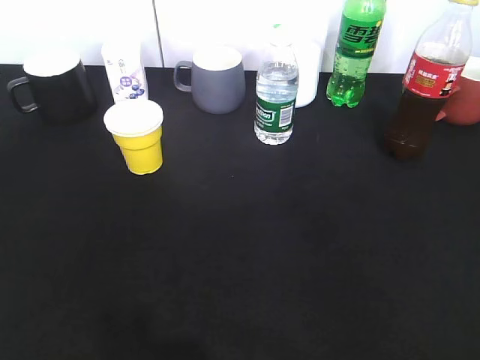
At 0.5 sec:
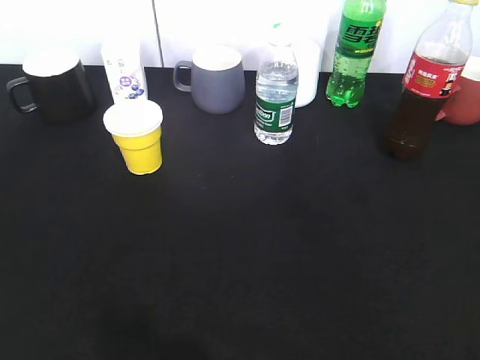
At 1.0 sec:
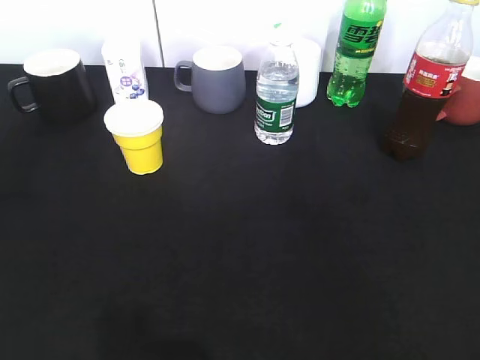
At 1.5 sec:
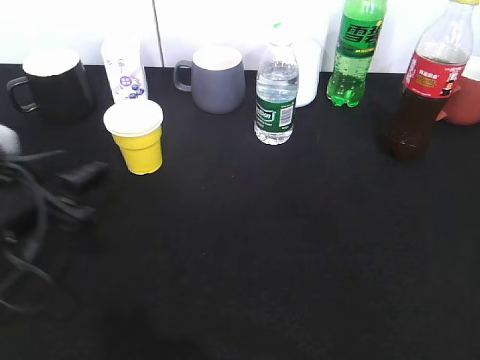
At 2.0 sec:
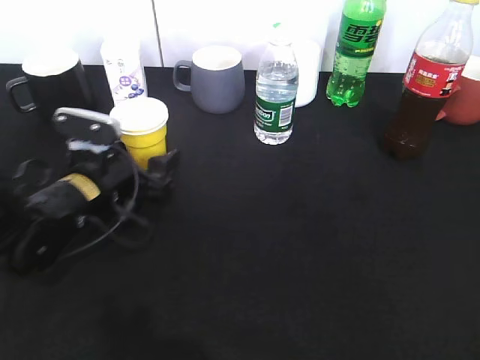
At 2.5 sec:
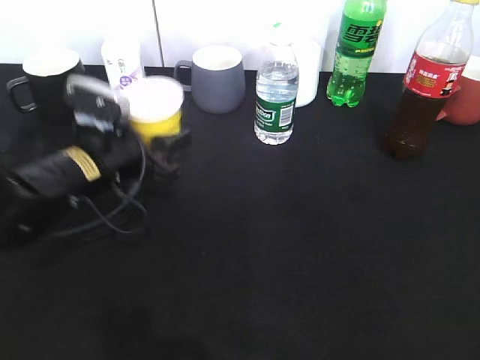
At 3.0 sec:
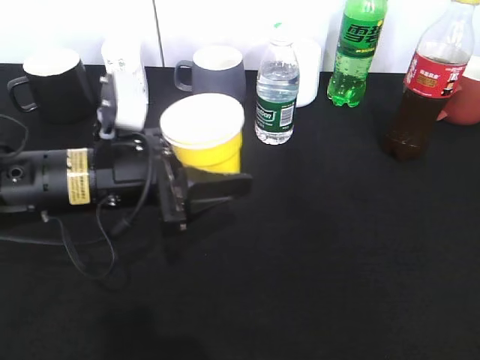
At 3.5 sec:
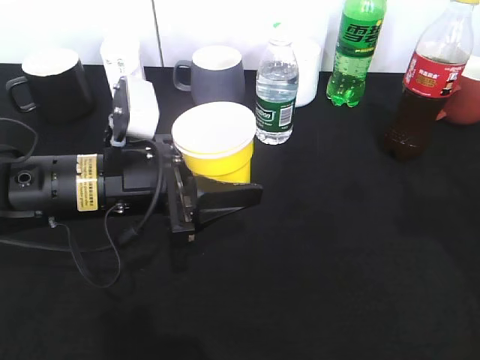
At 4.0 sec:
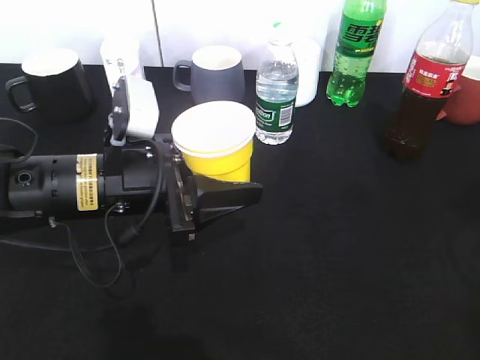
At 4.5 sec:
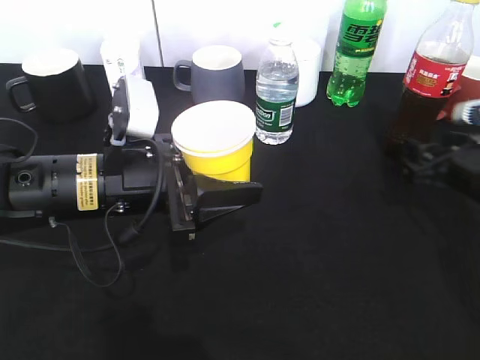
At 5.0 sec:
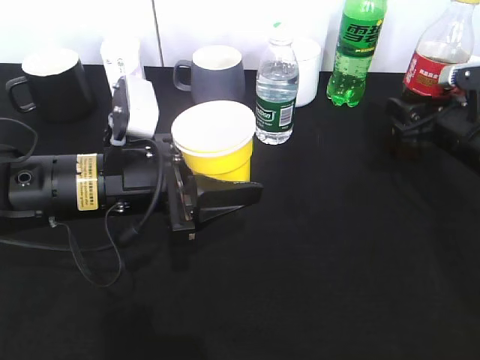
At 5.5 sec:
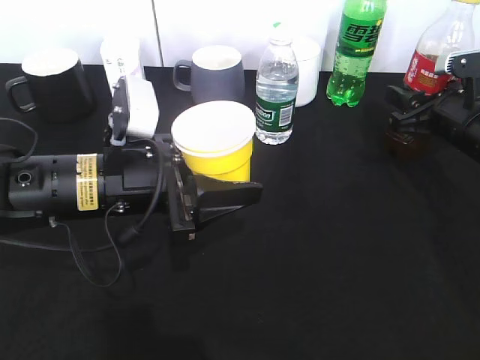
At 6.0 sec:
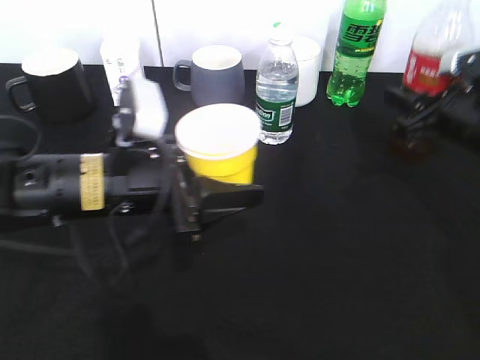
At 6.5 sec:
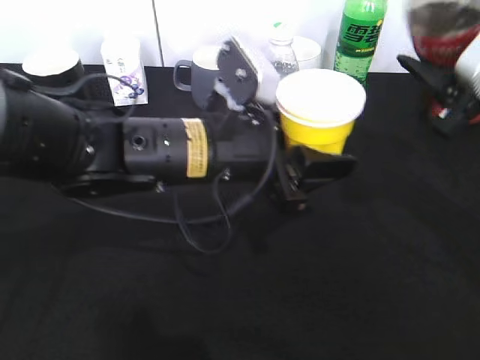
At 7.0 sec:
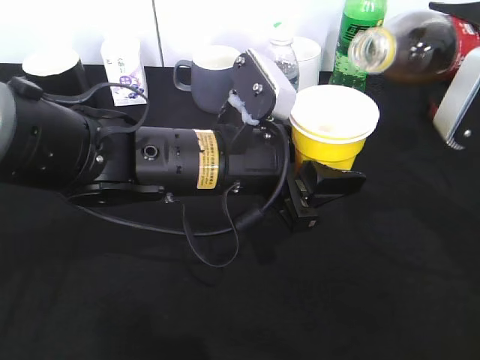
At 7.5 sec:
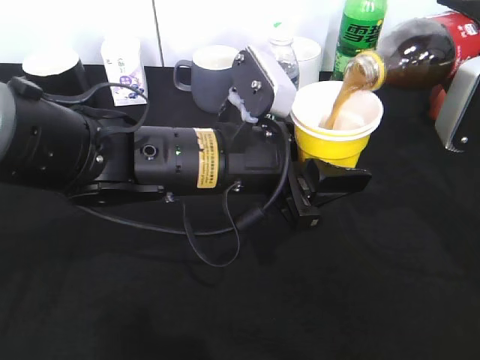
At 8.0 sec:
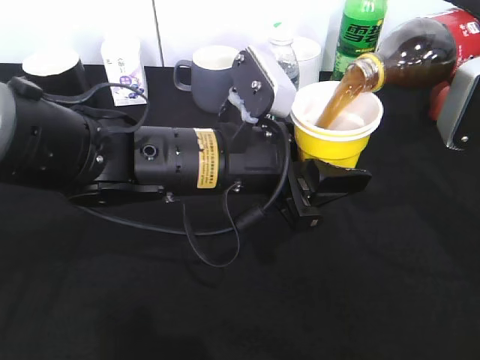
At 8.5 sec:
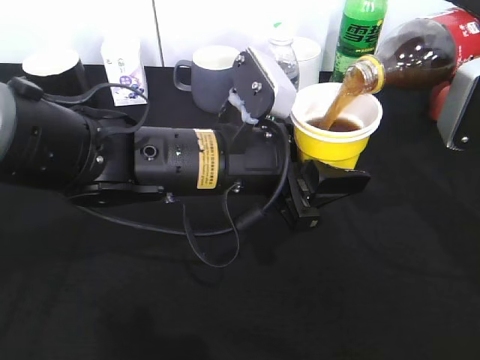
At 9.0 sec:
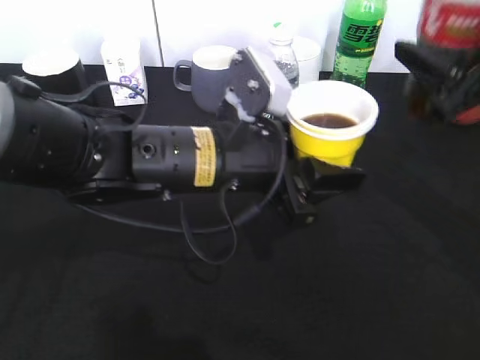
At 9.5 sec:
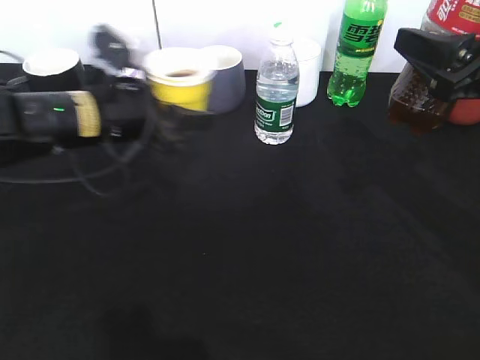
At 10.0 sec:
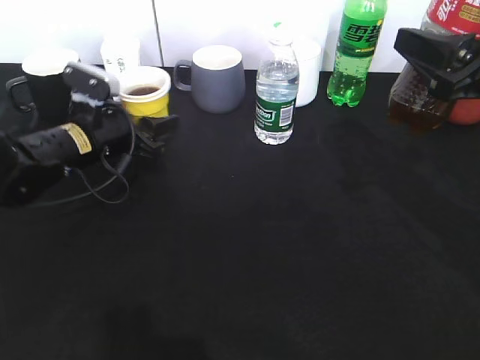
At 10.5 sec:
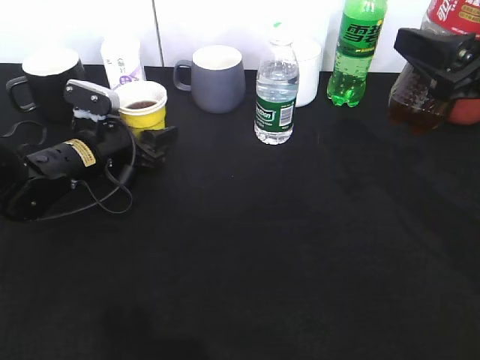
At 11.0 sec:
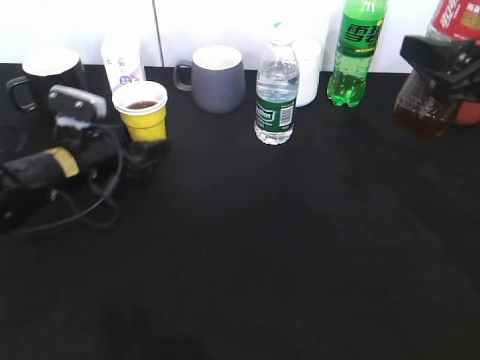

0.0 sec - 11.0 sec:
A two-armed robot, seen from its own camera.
Step, 0.0 sec - 2.0 sec: Grasp the yellow paper cup with left gripper.
Step, 3.0 sec - 5.0 sec: Grasp the bottle with cola with right gripper.
Step, 6.0 sec - 8.0 sec: Pour the cola from bottle to cup with right gripper.
Step, 8.5 sec - 10.5 sec: Place the yellow paper cup on the table with left gripper.
0.0 sec - 2.0 sec: The left gripper is displaced forward, downward and to the right by some 40 cm, and opens.
2.0 sec - 3.5 sec: The left gripper is displaced upward, backward and to the right by about 10 cm, and closes up. Meanwhile the right gripper travels forward by approximately 20 cm.
3.5 sec - 5.5 sec: The right gripper travels forward and downward by about 20 cm, and closes up.
5.5 sec - 7.5 sec: The left gripper moves to the right, approximately 10 cm; the right gripper travels upward and backward by about 15 cm.
9.0 sec - 11.0 sec: The left gripper goes approximately 20 cm to the left, downward and forward, and opens its fingers.

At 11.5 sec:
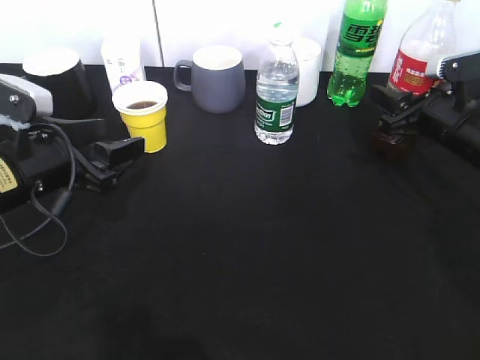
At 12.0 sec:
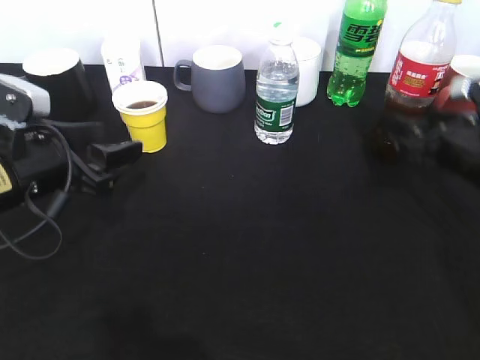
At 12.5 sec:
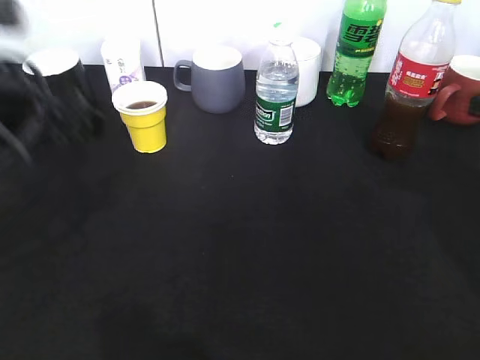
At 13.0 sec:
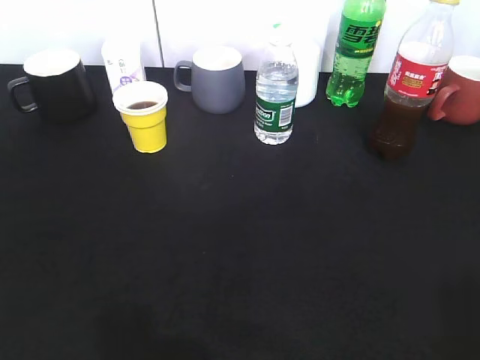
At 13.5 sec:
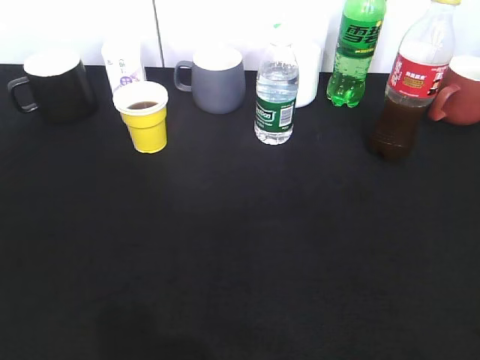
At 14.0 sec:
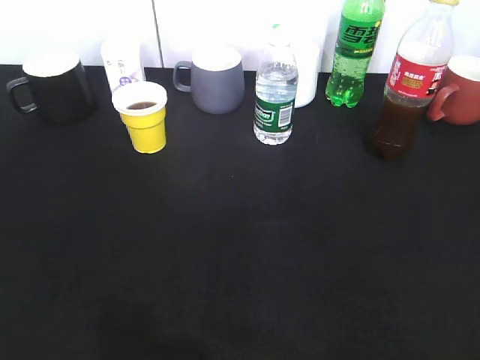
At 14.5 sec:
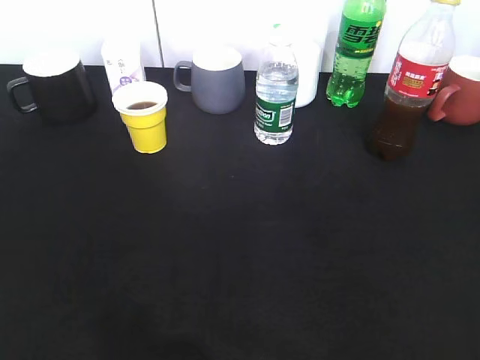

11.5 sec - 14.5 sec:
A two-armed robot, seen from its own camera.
11.5 sec - 13.0 sec: The two grippers go approximately 35 cm backward and upward. The right gripper opens.
